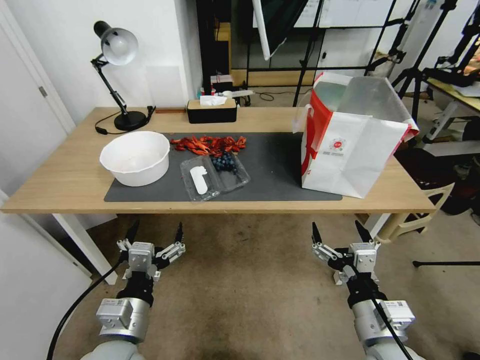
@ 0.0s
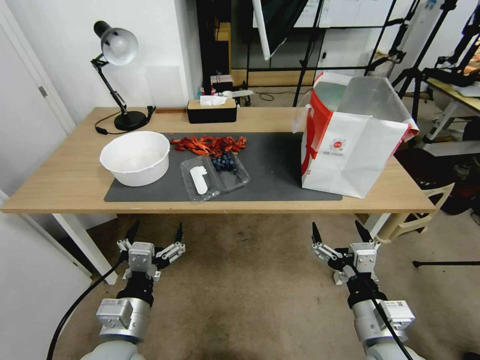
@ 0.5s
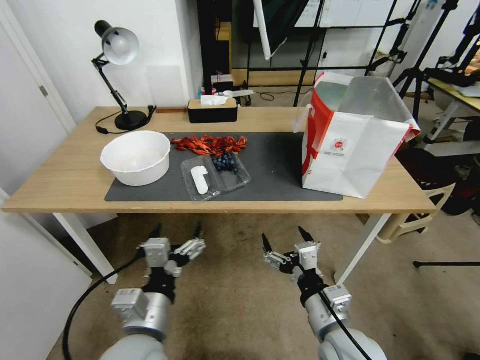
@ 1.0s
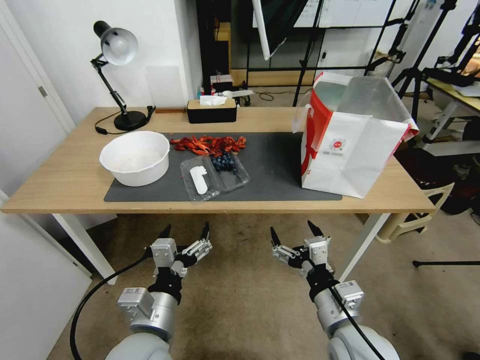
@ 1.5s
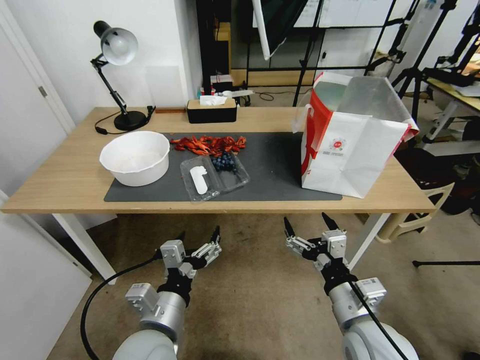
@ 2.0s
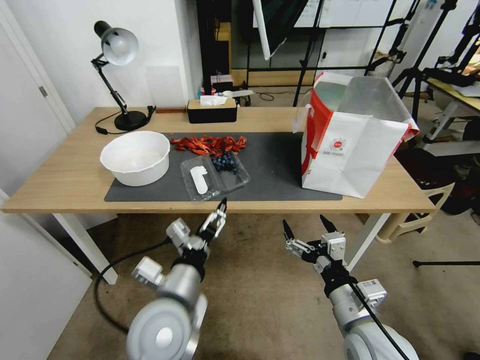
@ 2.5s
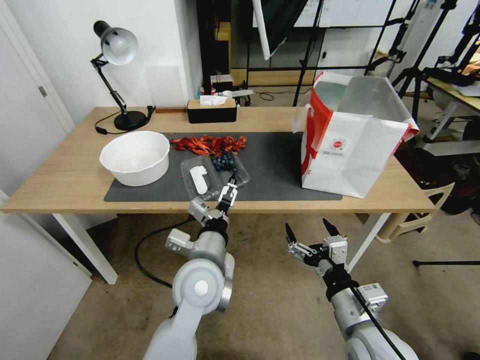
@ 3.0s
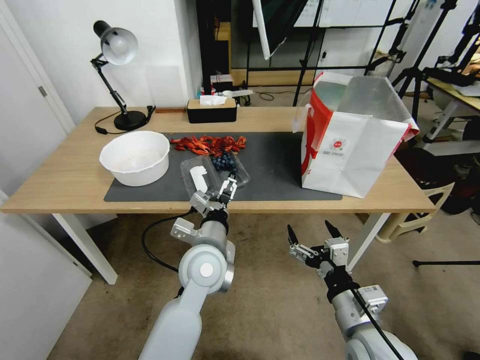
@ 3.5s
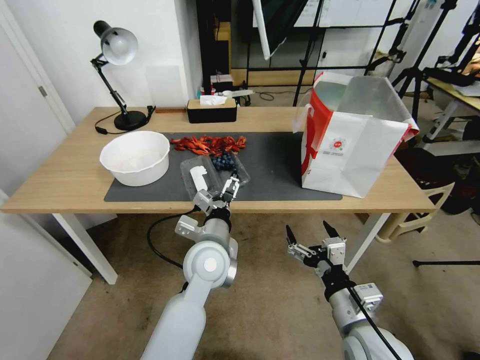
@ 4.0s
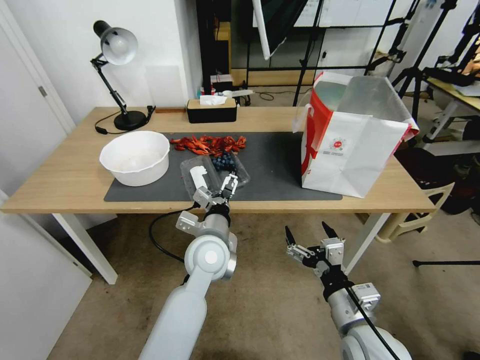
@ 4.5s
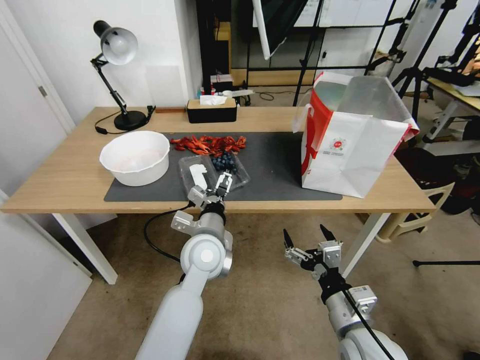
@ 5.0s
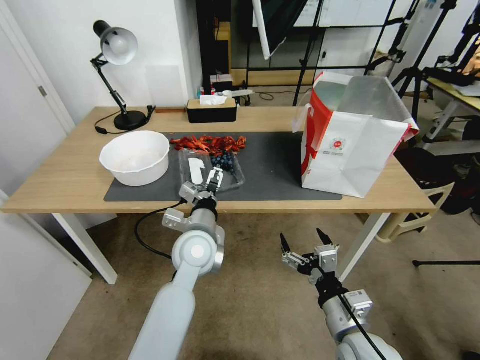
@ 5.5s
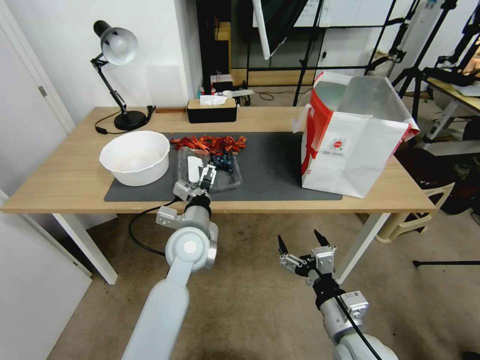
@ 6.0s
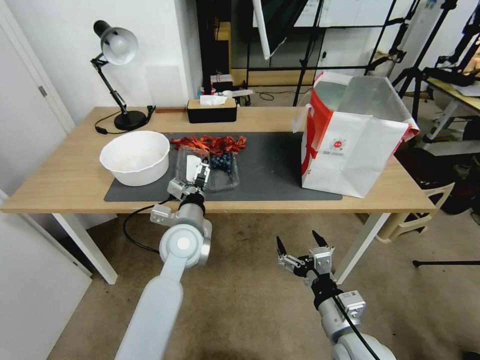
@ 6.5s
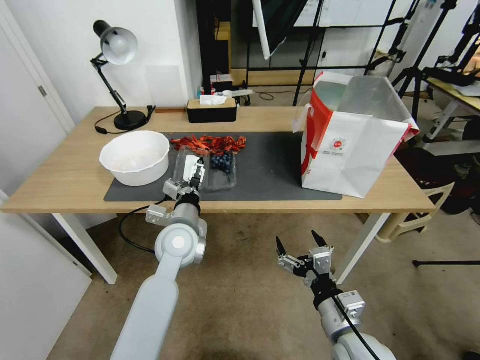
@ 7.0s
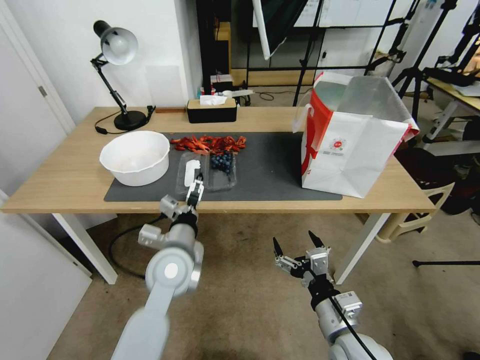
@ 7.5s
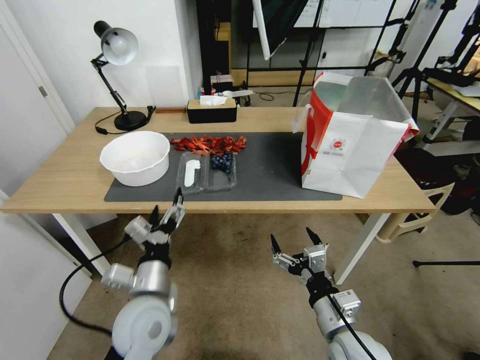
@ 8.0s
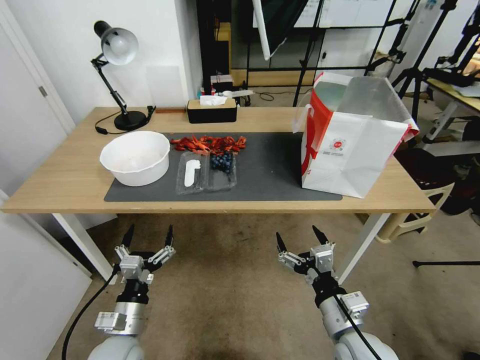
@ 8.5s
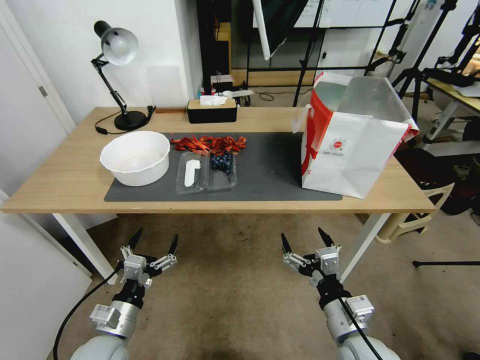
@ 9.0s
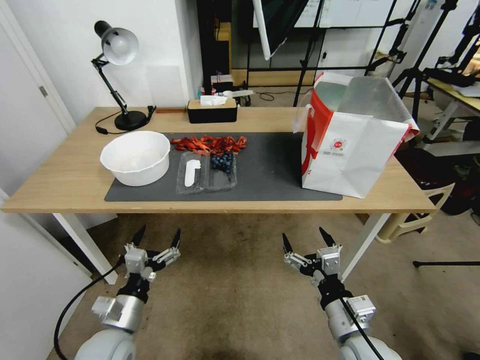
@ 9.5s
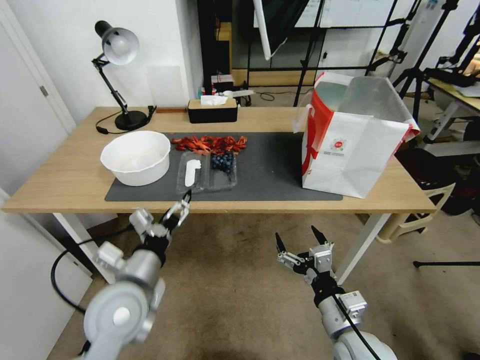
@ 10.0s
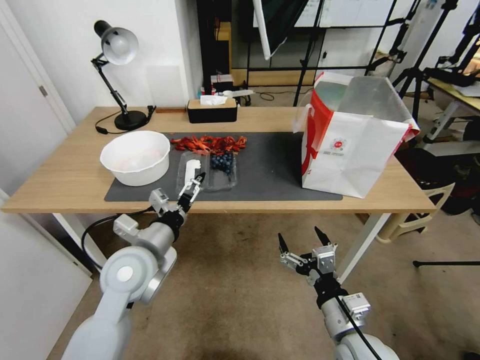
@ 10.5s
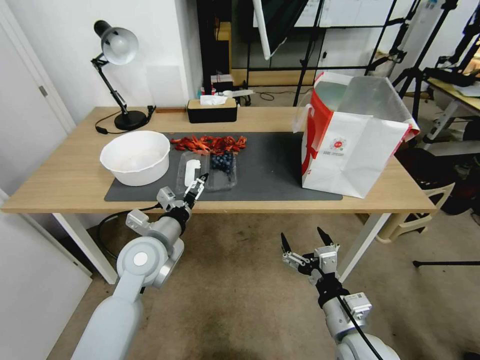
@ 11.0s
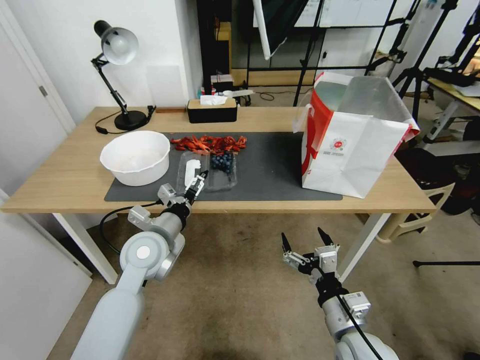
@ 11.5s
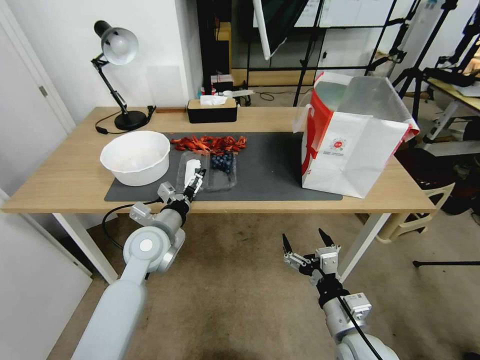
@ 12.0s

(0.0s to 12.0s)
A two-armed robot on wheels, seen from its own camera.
Task of the whole recording: Close the takeout container lid, then place the container into the takeout bag.
2.0s - 4.0s: The left gripper shifts approximately 15 cm forward and to the right.
4.0s - 6.0s: The left gripper changes place by roughly 5 cm.
6.0s - 8.0s: The left gripper travels backward and to the left by approximately 15 cm.
8.0s - 10.0s: The left gripper goes downward and returns, some 10 cm each way.
10.0s - 12.0s: The left gripper shifts approximately 10 cm forward.

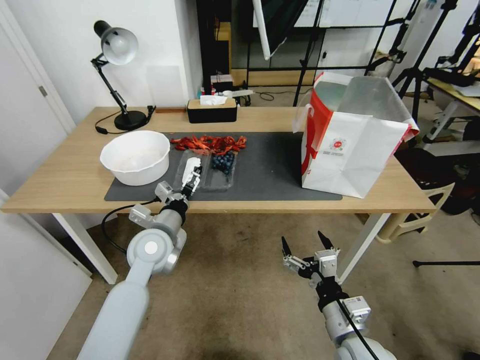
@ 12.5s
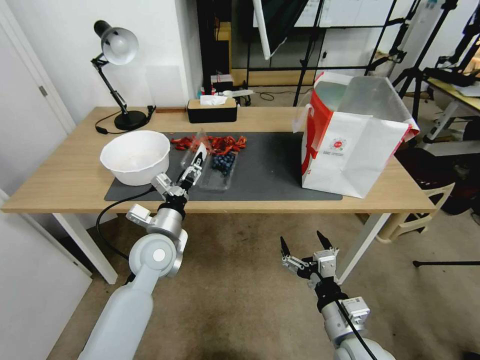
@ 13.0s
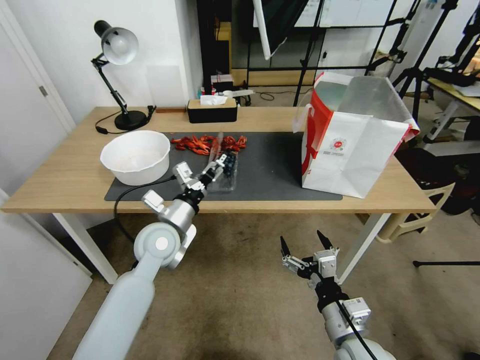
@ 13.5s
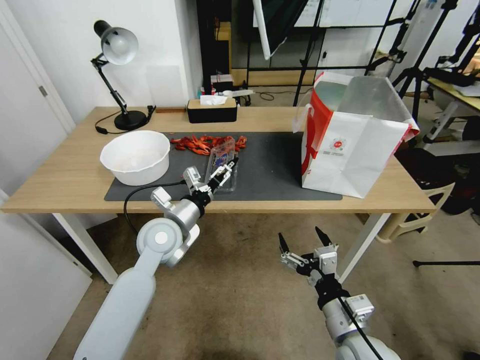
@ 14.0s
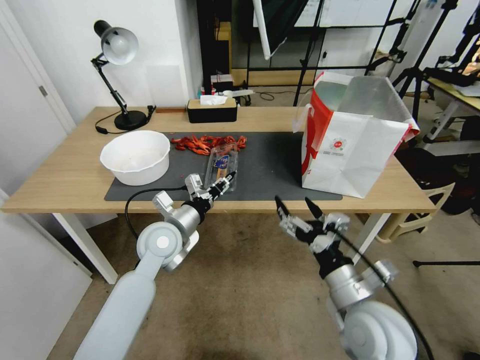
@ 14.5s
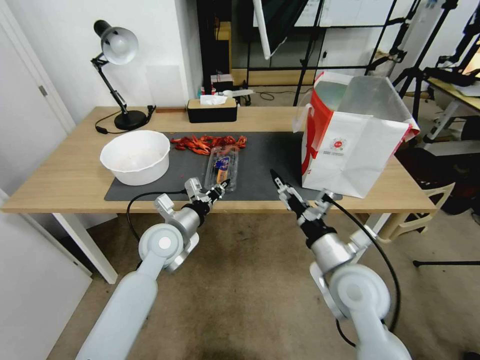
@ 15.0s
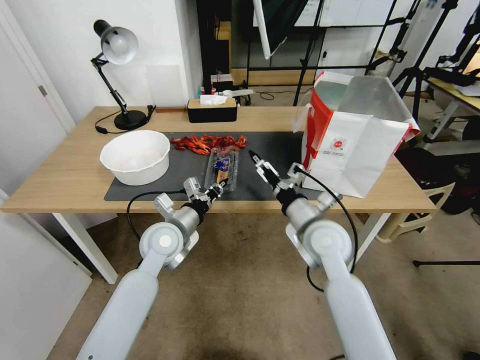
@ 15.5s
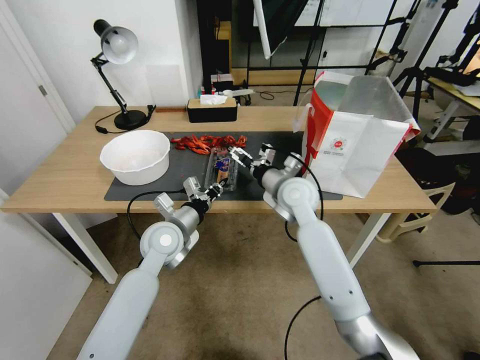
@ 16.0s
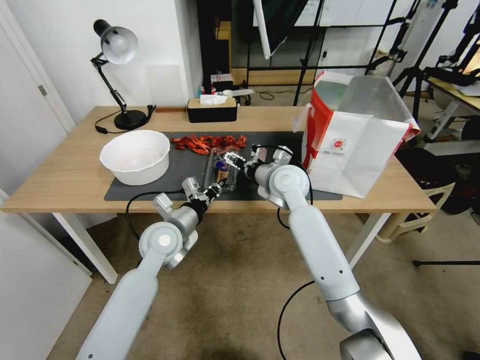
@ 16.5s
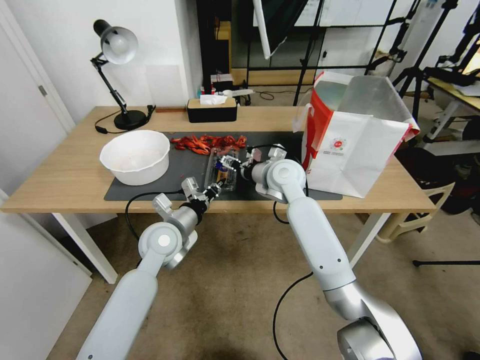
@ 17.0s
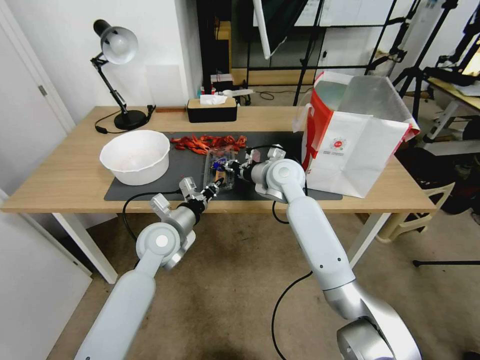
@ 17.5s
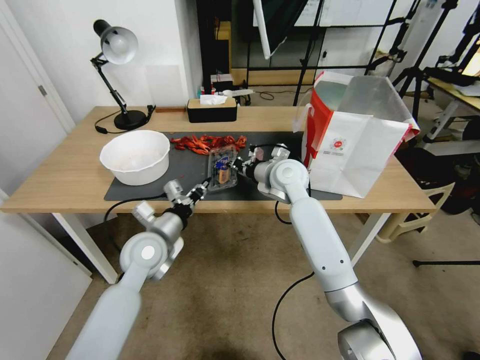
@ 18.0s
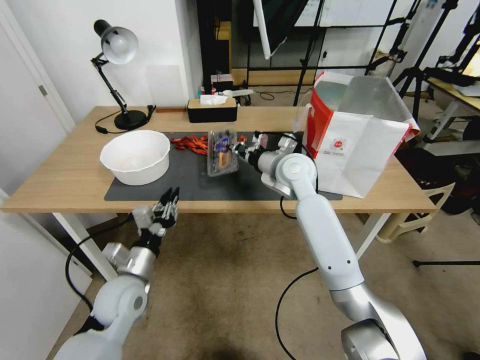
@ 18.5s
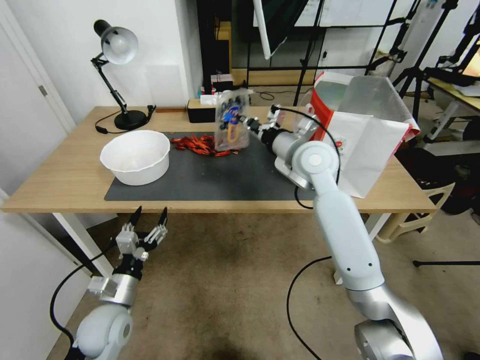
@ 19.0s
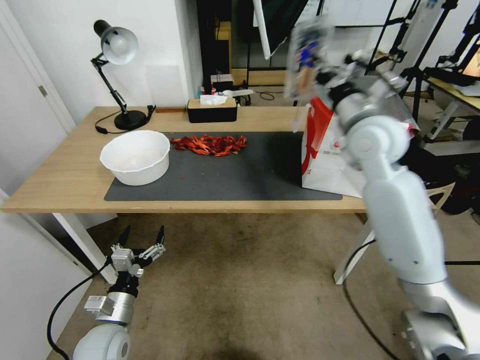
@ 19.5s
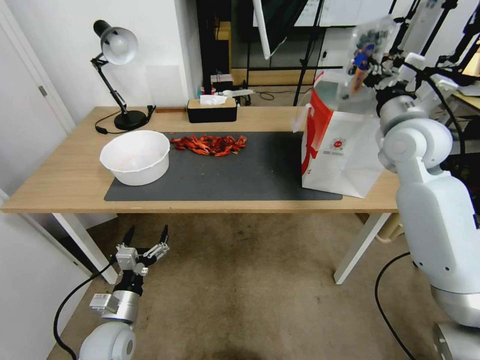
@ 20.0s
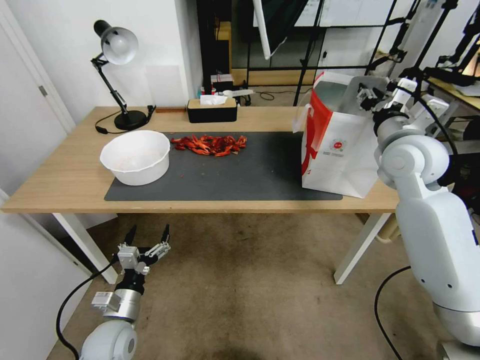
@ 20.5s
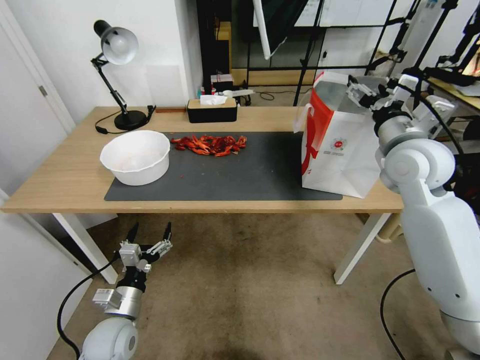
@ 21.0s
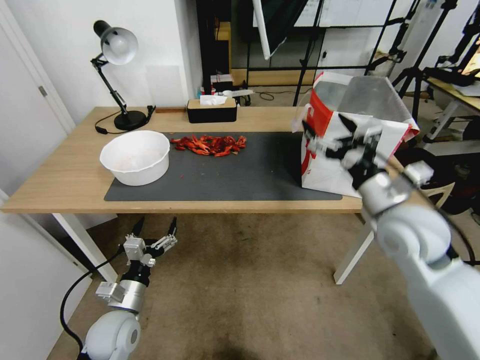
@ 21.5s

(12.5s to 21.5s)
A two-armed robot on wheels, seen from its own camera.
Task of the whole recording: Close the takeout container lid, then place the container into the takeout bag.
12.5s - 14.5s: The right gripper goes roughly 5 cm upward, while the left gripper closes its fingers.
14.5s - 17.0s: The right gripper moves forward, approximately 30 cm.
17.0s - 19.5s: The right gripper is displaced upward and to the right by approximately 20 cm, and closes its fingers; the left gripper shifts approximately 25 cm backward, downward and to the left, and opens its fingers.
19.5s - 21.5s: The right gripper is displaced backward and downward by some 15 cm, and opens.

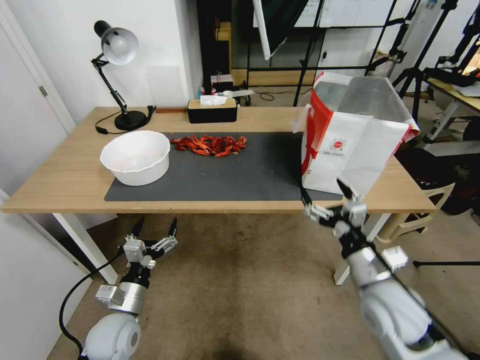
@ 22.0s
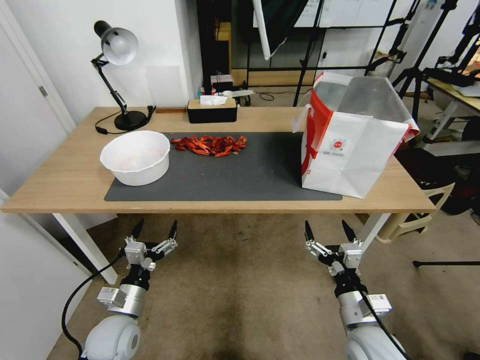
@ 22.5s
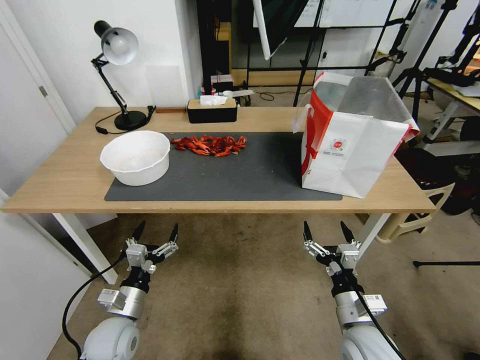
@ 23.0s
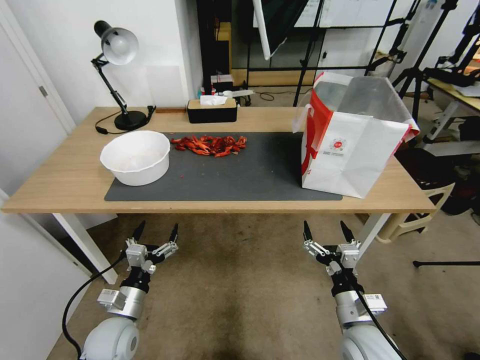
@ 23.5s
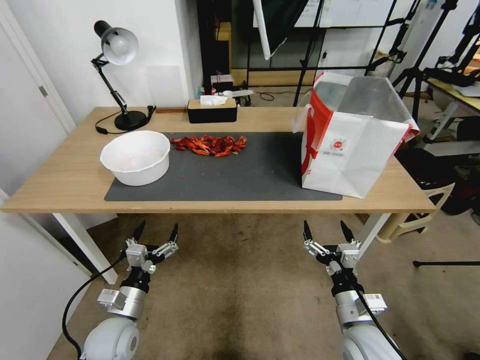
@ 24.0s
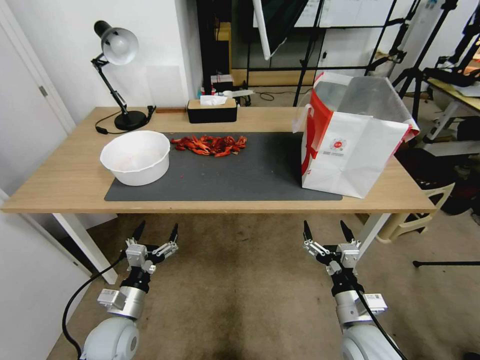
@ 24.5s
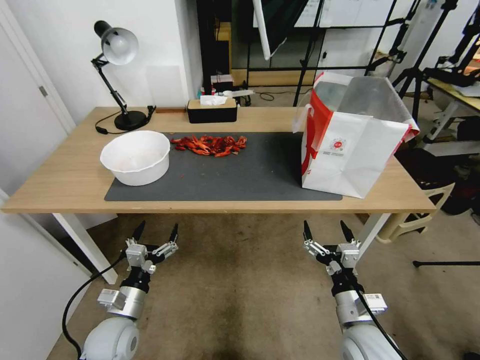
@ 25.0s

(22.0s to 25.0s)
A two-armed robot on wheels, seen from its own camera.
Task of the whole recording: Close the takeout container lid, then place the container into the takeout bag.
22.0s - 23.5s: The right gripper shifts roughly 10 cm downward and backward.
23.5s - 25.0s: Both grippers stay put.
